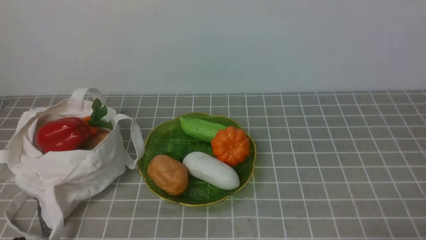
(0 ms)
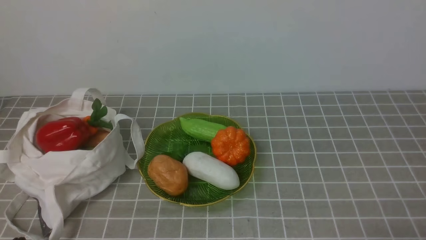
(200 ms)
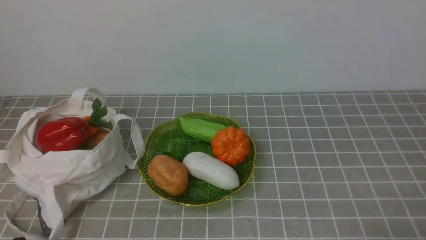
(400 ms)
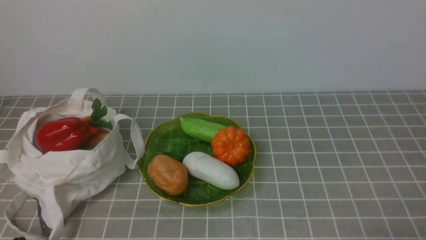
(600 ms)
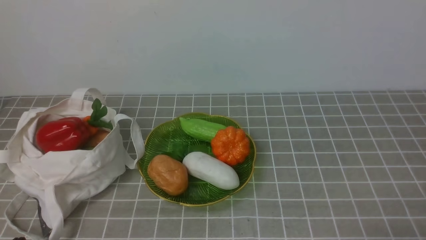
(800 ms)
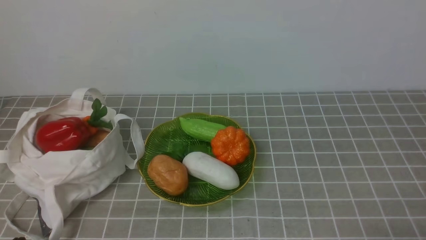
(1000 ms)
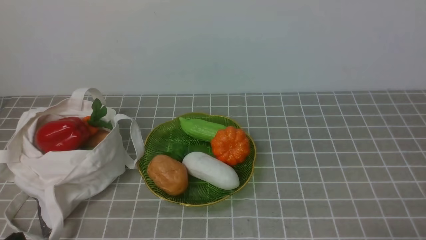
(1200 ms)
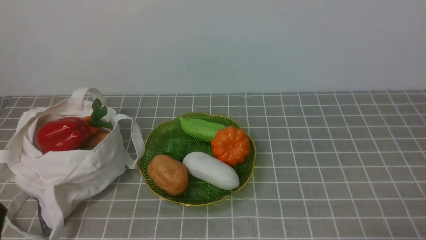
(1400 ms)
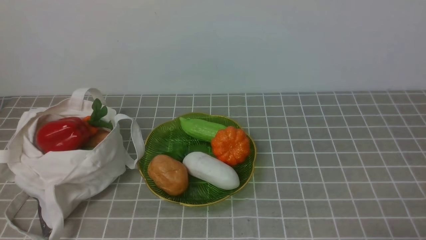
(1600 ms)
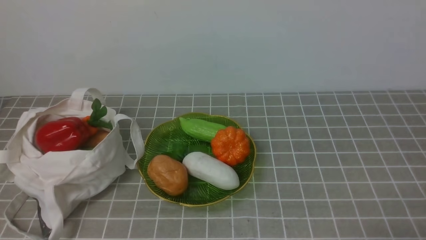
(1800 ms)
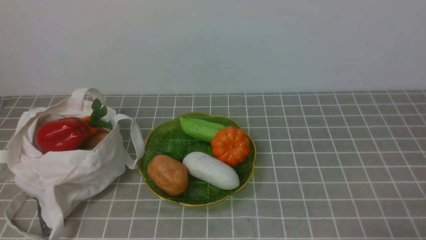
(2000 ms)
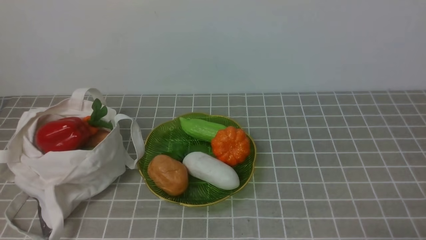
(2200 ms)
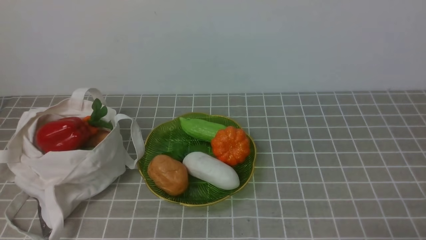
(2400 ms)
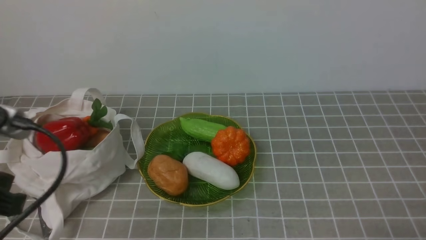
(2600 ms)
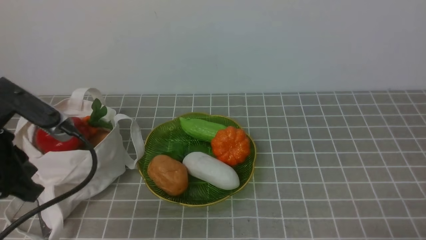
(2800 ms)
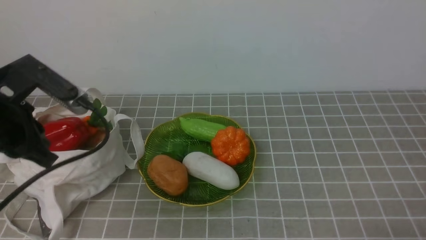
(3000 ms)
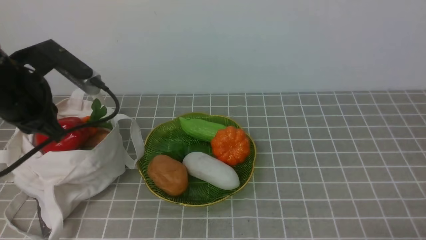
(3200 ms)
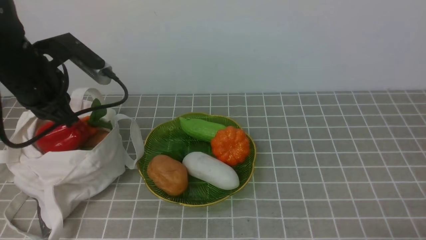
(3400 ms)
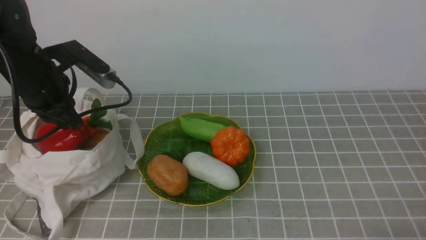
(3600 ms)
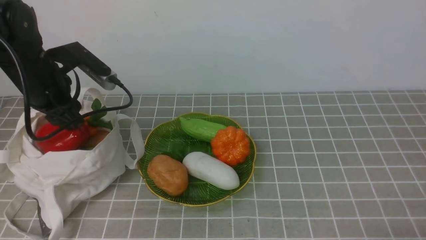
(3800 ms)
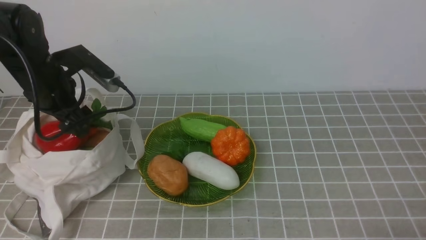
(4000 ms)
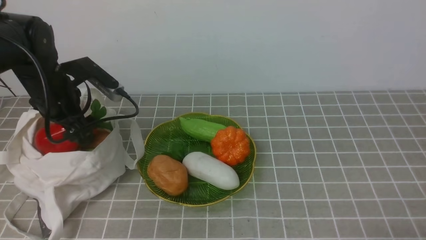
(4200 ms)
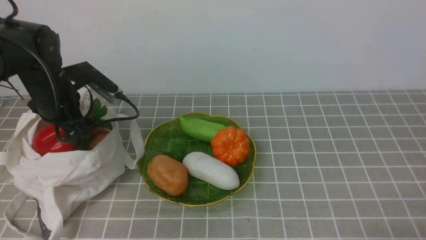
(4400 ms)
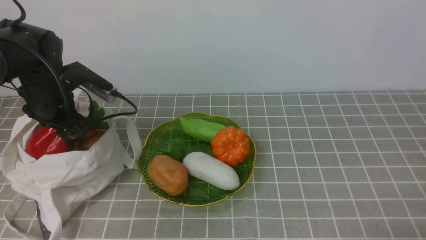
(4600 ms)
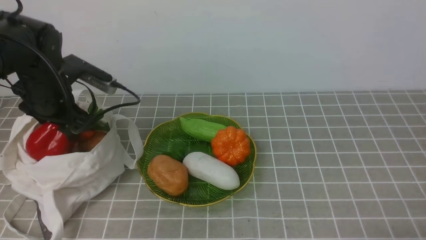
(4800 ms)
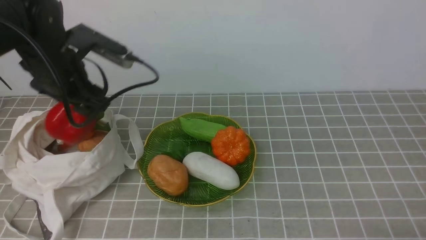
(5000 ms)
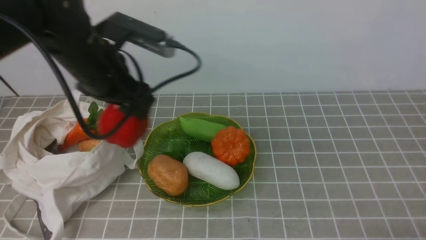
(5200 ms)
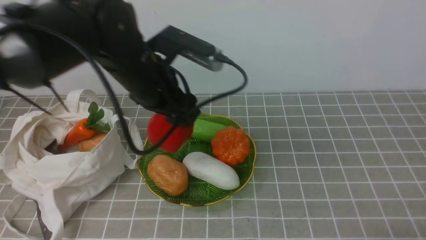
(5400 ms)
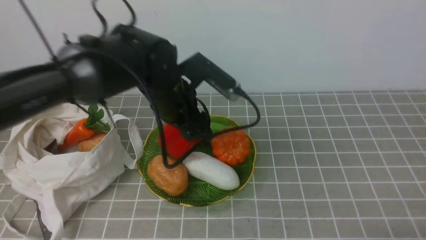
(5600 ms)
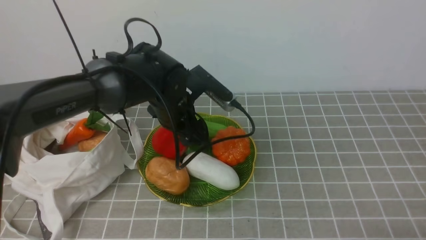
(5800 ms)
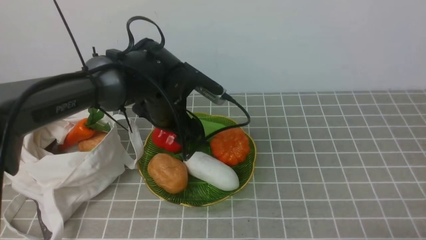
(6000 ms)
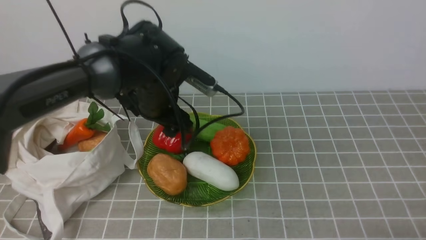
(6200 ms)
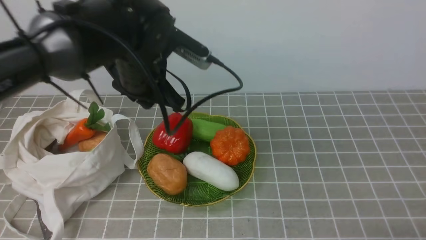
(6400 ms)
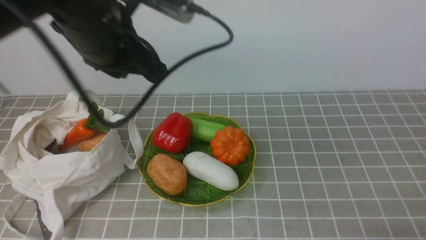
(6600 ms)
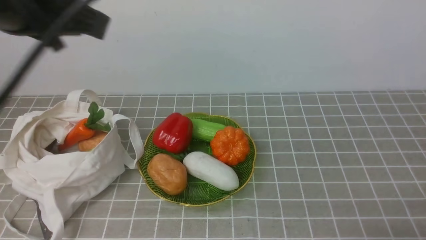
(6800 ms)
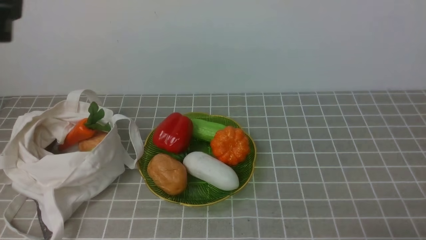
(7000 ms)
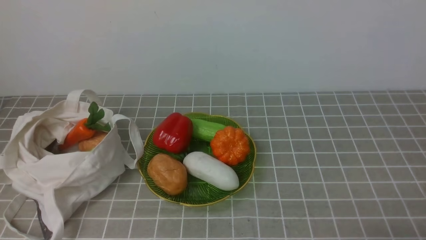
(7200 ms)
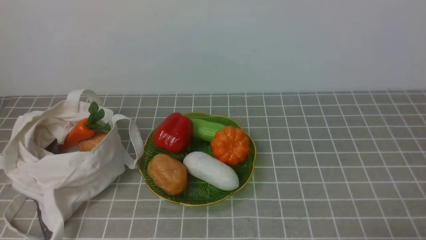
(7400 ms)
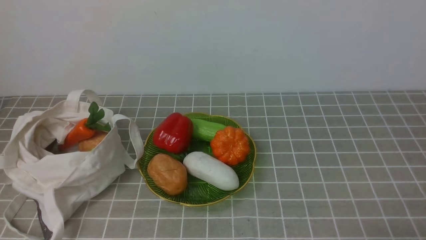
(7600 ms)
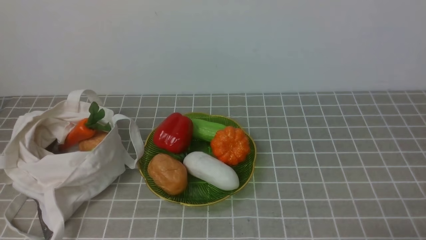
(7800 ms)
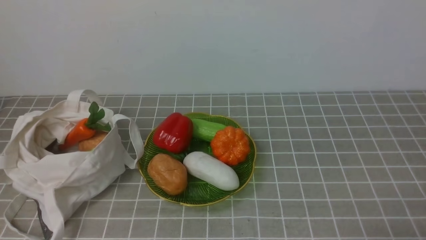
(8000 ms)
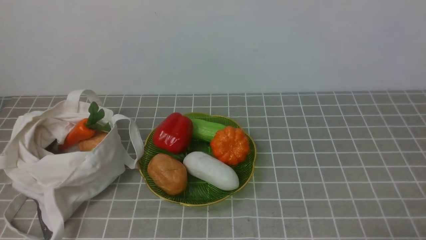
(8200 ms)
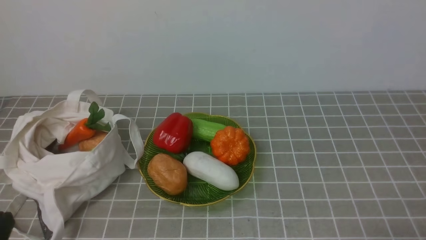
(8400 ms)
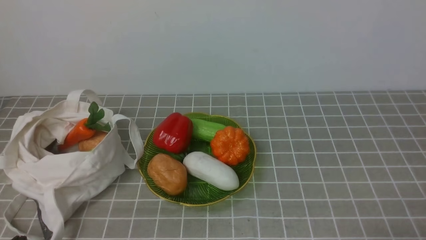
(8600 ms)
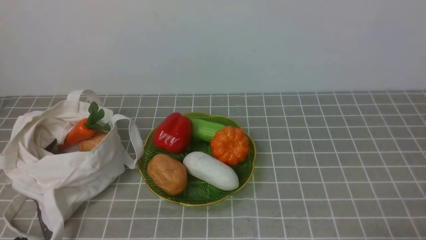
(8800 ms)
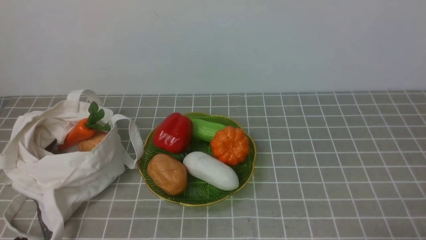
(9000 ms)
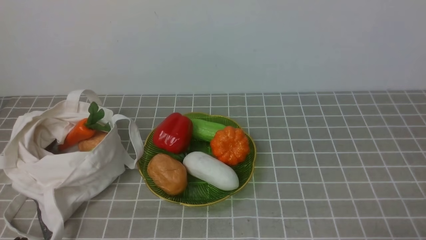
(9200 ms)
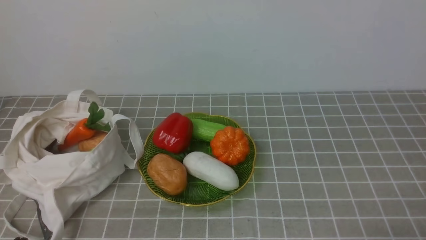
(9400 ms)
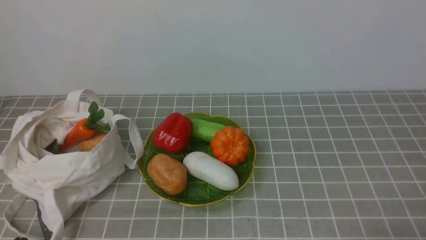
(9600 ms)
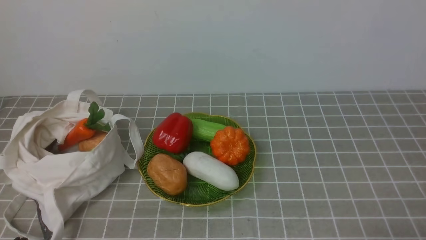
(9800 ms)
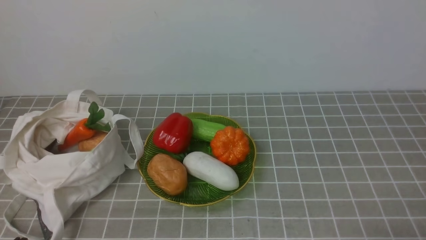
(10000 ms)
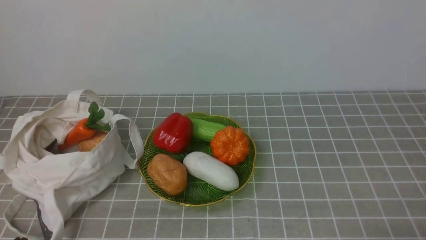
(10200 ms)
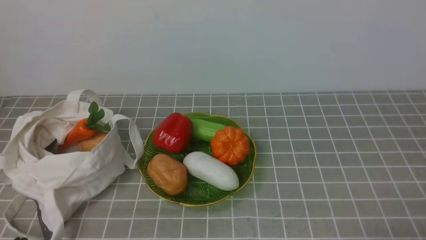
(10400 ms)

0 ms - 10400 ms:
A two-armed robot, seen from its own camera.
Task of the whole recording: take vegetables from bag on grey coffee tablecloth place on plate.
Step, 0 ms - 4400 ms: Grasp the bell pepper with left gripper.
Step, 4800 ms - 6400 ms: Place the bell pepper on the plate with left gripper.
1400 ms - 3000 ms: The left gripper is displaced forward and upward by roughly 25 cm.
3000 ms - 4400 ms: The left gripper heads forward and downward, covering roughly 15 cm, and opens.
4400 ms - 6000 ms: The left gripper moves to the right, about 20 cm.
6000 ms - 7400 ms: The left gripper heads backward, upward and to the left, covering about 40 cm, and closes.
9000 ms - 10400 ms: Both grippers stay put.
